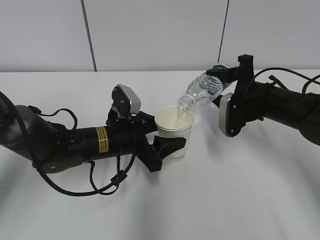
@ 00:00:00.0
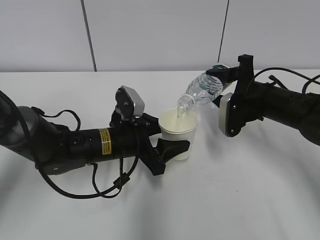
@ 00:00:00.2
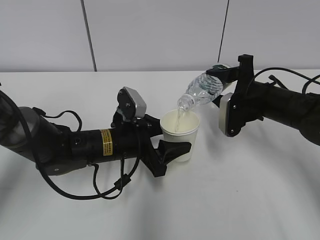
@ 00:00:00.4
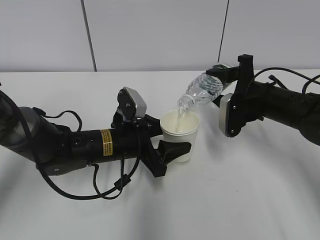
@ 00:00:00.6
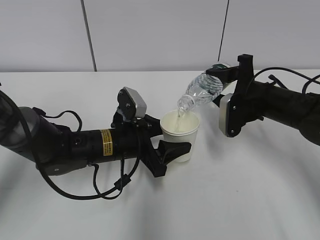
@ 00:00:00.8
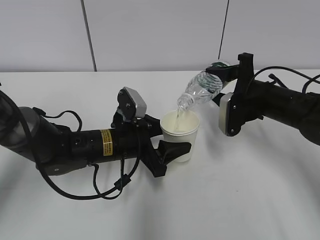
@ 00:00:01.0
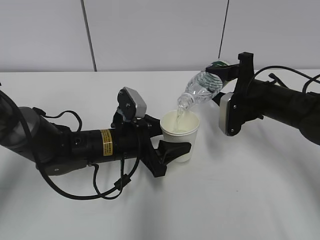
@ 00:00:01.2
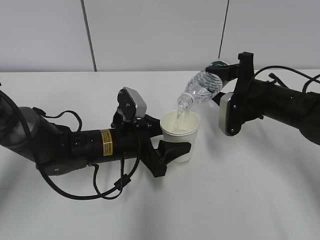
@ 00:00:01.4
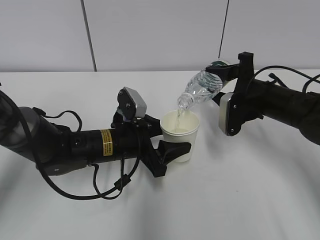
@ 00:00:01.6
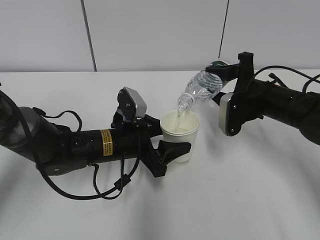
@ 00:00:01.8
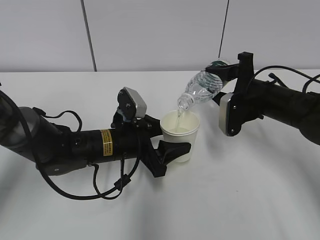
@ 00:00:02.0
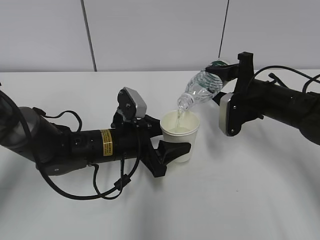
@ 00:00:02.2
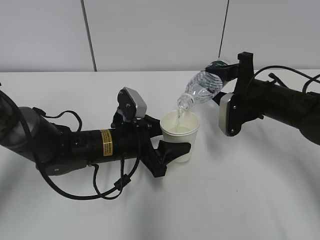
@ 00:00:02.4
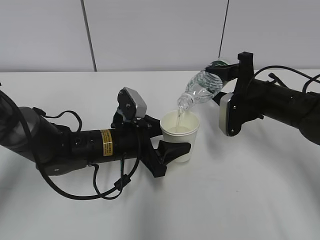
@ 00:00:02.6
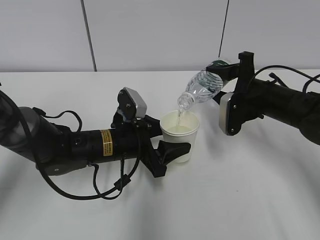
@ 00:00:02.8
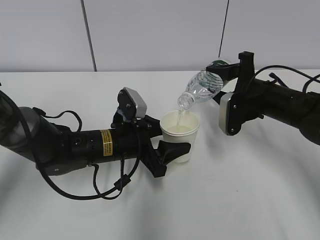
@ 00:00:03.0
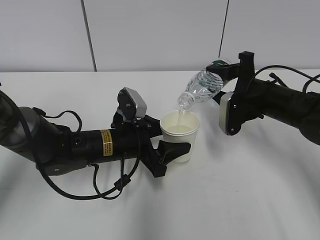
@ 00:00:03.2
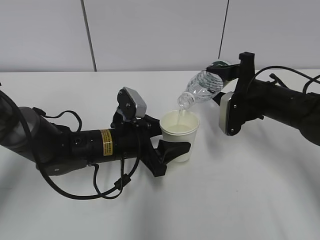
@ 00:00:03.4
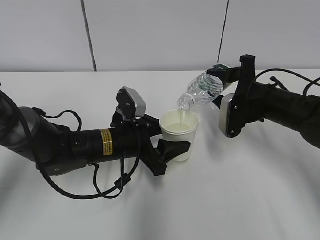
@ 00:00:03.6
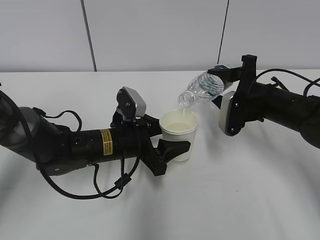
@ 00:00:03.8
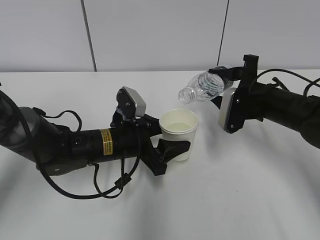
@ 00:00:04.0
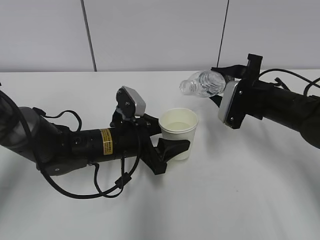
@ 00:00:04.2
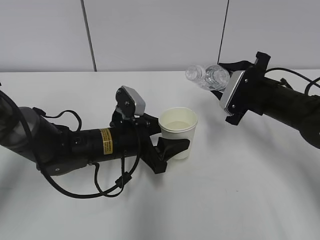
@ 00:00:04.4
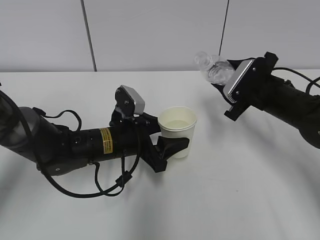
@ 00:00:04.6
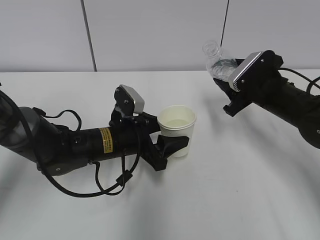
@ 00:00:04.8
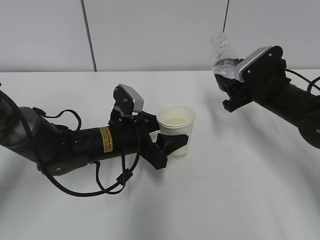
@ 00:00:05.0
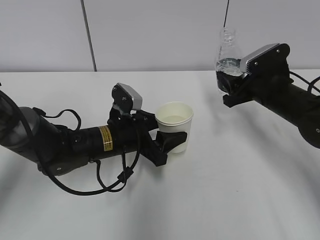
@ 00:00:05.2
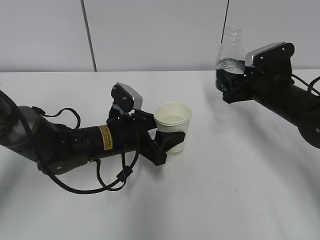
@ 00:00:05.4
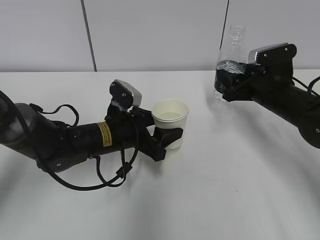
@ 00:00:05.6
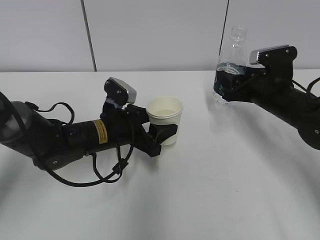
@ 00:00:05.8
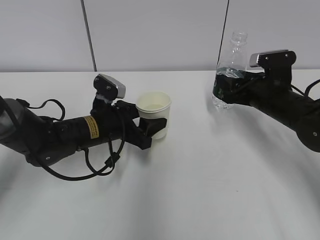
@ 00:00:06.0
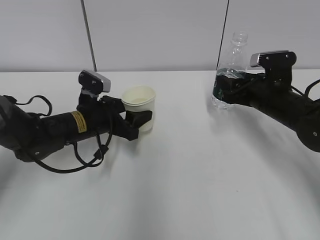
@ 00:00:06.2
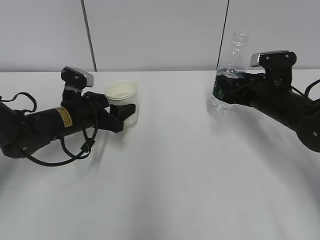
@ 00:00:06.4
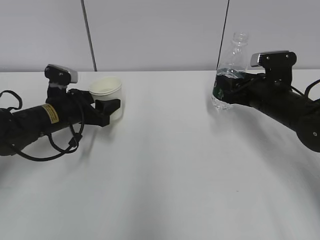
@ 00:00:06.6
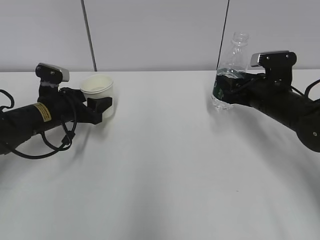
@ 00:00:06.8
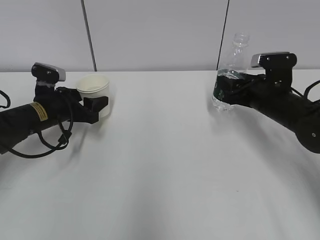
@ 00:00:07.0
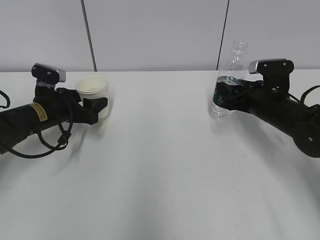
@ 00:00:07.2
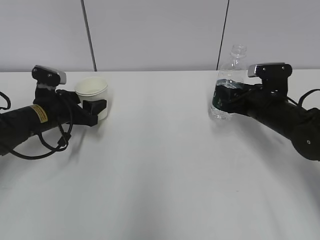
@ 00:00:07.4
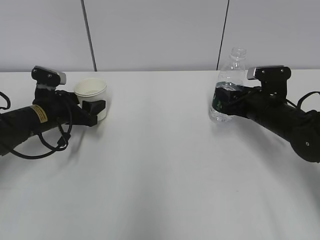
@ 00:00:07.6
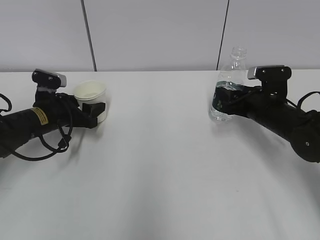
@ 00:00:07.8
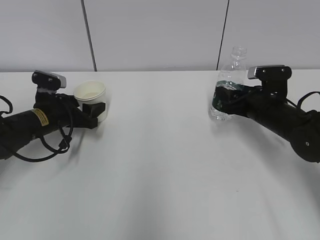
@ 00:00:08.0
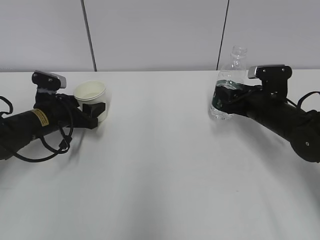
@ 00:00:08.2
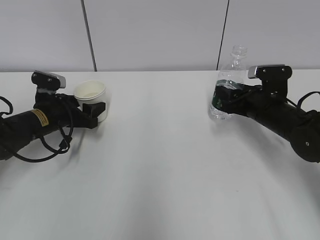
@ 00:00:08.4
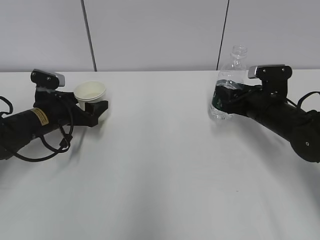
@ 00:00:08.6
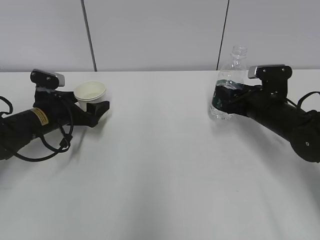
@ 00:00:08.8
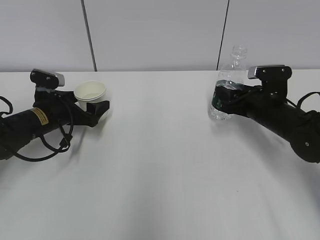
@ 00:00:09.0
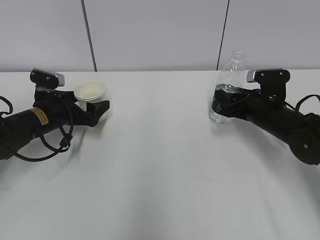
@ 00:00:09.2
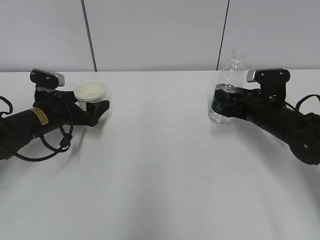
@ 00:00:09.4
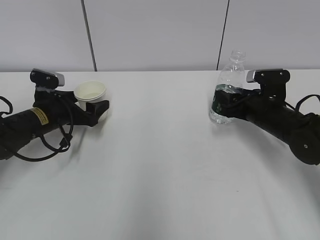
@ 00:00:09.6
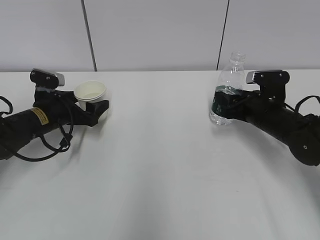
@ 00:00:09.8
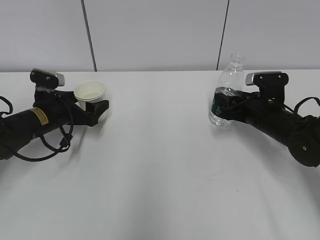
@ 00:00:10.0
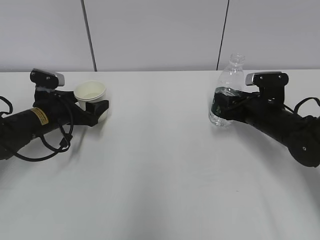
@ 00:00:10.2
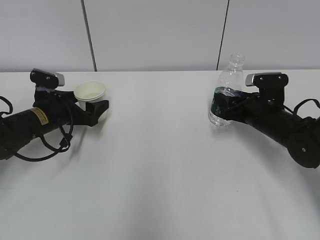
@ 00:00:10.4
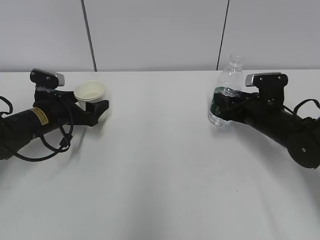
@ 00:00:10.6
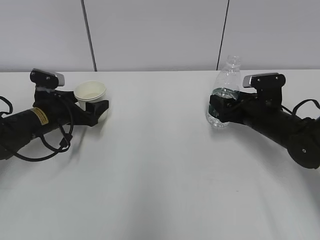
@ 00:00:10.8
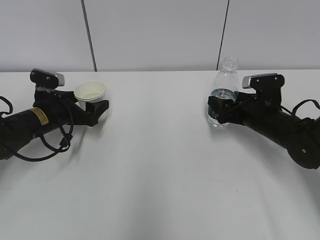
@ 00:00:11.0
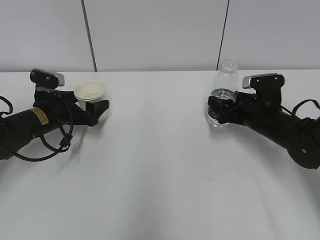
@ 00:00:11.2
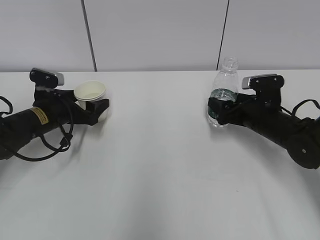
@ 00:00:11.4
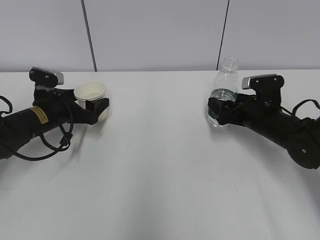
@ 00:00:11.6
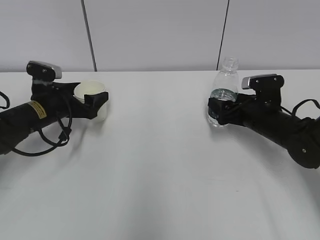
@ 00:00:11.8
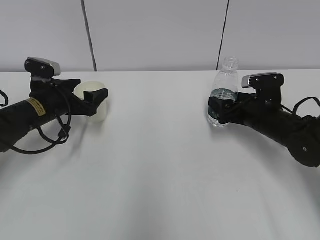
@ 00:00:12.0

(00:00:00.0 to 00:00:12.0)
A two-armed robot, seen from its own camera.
Step, 00:00:03.0 - 00:00:04.8: Place the water bottle with the right hand.
00:00:00.0 - 00:00:03.0: Neither gripper changes place.
00:00:06.0 - 00:00:07.6: The left gripper heads to the left, covering approximately 10 cm.
00:00:07.6 - 00:00:09.0: The left gripper opens.
00:00:09.0 - 00:00:10.4: The grippers stay close to where they were, moving slightly.
00:00:10.4 - 00:00:12.0: The right gripper opens its fingers.

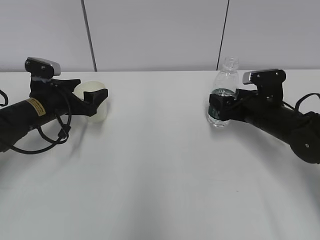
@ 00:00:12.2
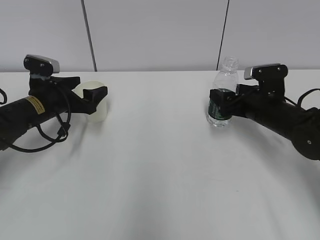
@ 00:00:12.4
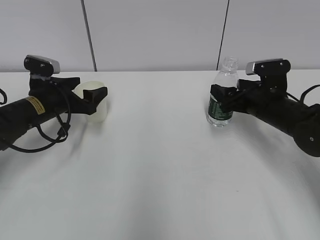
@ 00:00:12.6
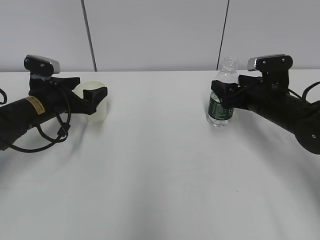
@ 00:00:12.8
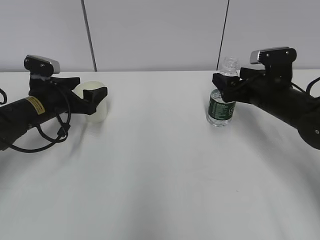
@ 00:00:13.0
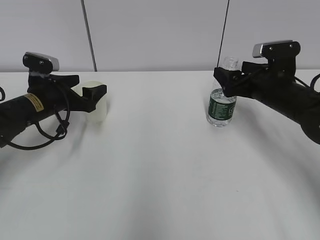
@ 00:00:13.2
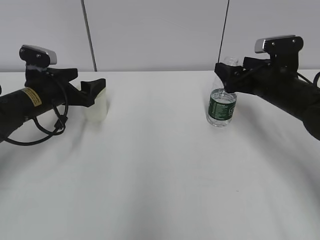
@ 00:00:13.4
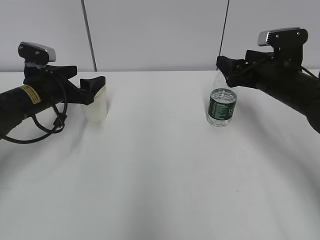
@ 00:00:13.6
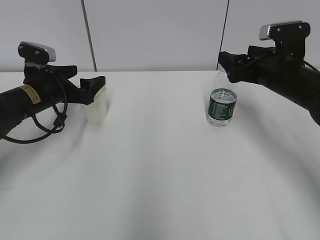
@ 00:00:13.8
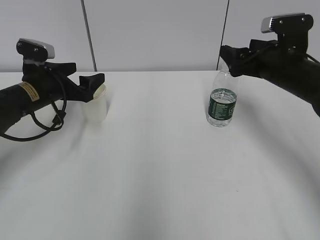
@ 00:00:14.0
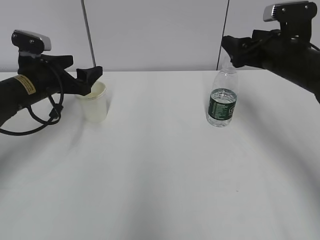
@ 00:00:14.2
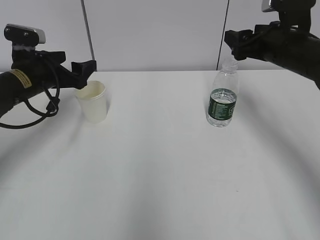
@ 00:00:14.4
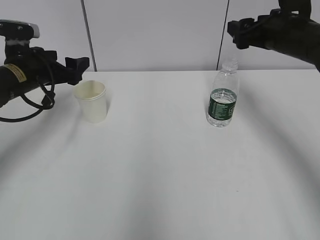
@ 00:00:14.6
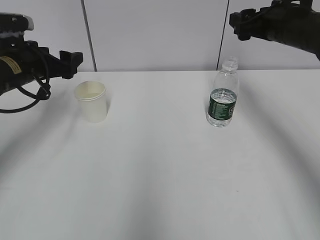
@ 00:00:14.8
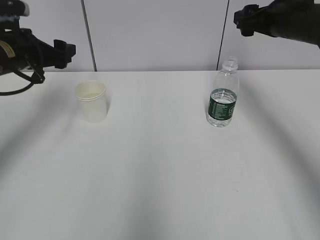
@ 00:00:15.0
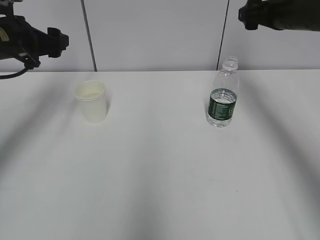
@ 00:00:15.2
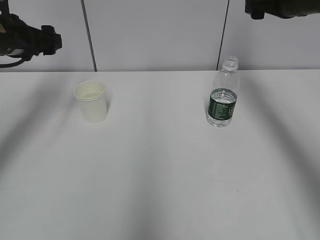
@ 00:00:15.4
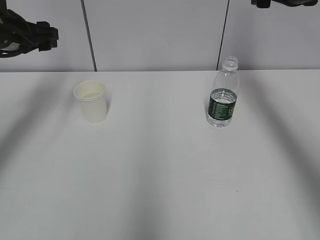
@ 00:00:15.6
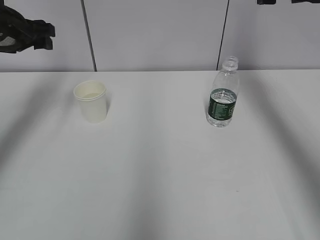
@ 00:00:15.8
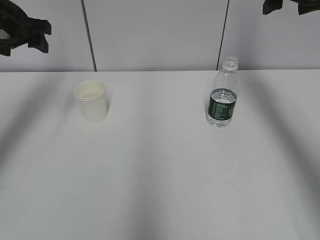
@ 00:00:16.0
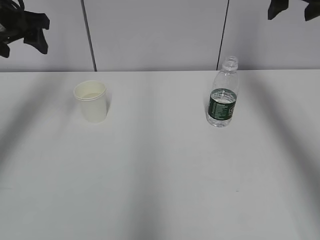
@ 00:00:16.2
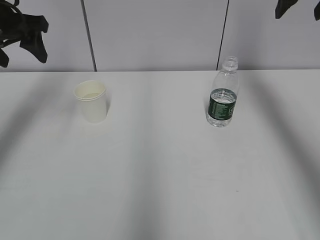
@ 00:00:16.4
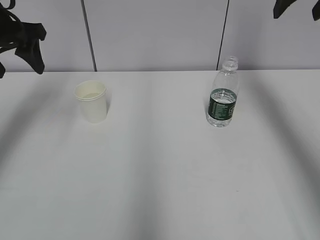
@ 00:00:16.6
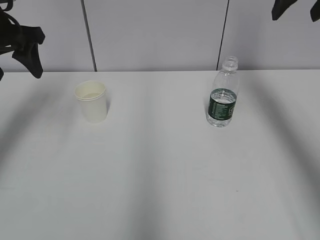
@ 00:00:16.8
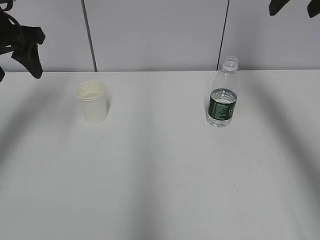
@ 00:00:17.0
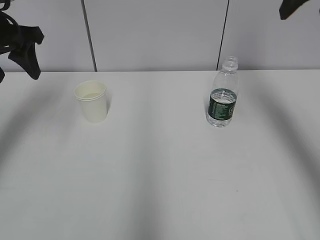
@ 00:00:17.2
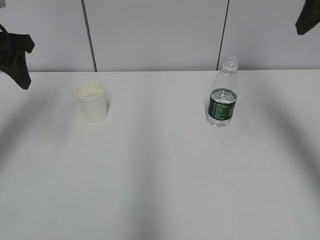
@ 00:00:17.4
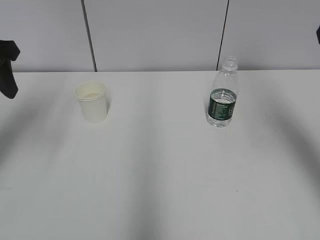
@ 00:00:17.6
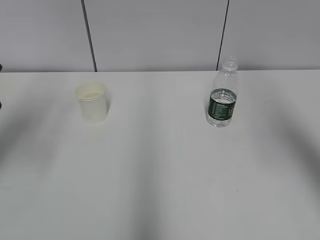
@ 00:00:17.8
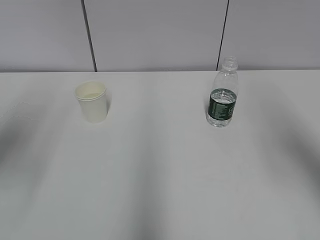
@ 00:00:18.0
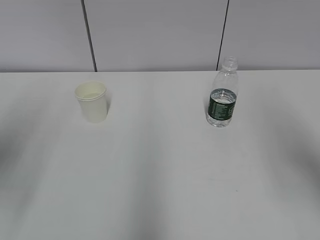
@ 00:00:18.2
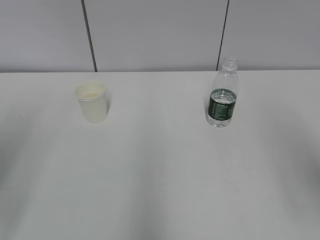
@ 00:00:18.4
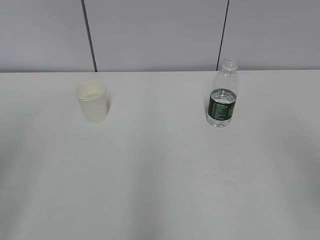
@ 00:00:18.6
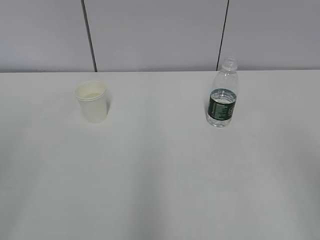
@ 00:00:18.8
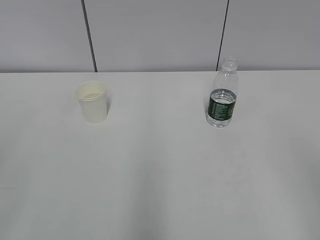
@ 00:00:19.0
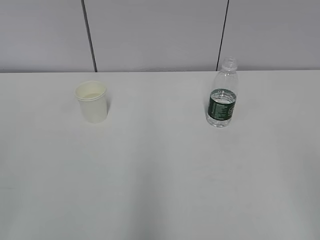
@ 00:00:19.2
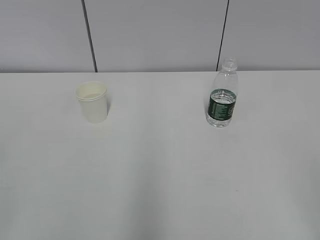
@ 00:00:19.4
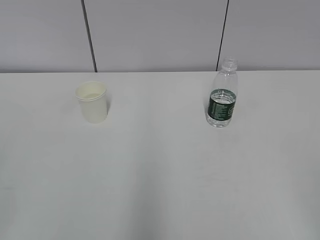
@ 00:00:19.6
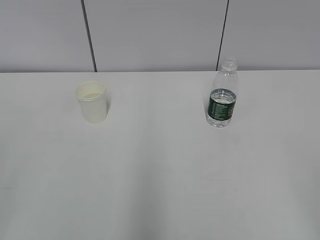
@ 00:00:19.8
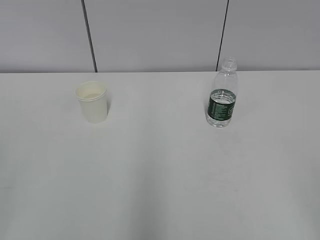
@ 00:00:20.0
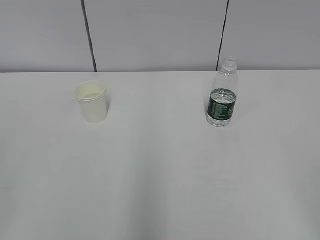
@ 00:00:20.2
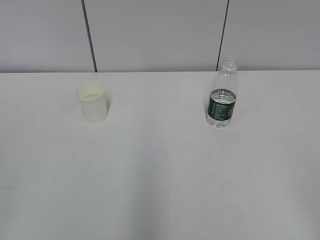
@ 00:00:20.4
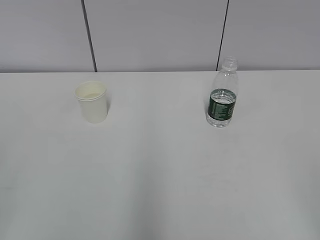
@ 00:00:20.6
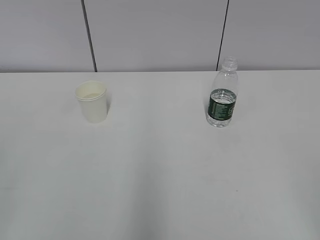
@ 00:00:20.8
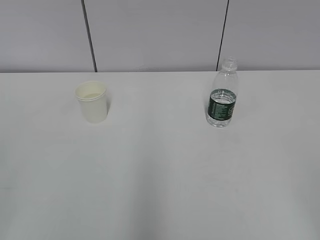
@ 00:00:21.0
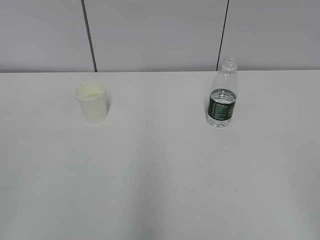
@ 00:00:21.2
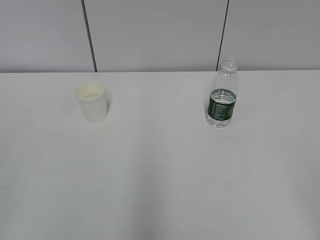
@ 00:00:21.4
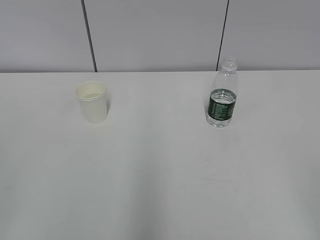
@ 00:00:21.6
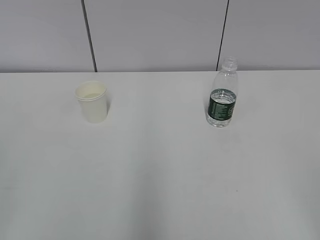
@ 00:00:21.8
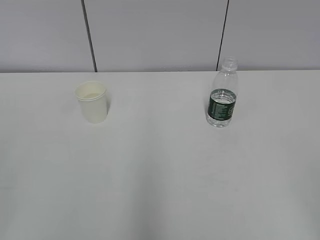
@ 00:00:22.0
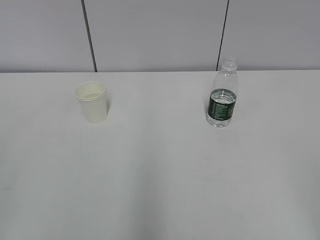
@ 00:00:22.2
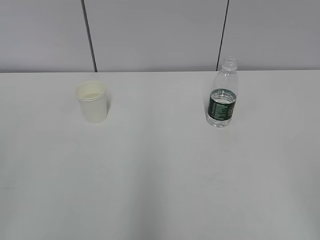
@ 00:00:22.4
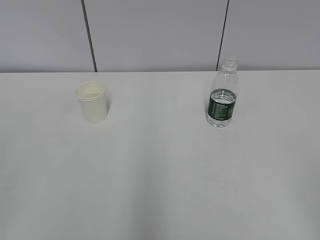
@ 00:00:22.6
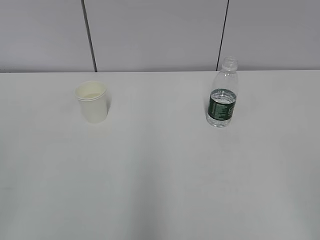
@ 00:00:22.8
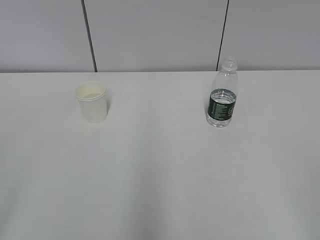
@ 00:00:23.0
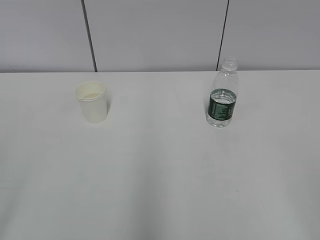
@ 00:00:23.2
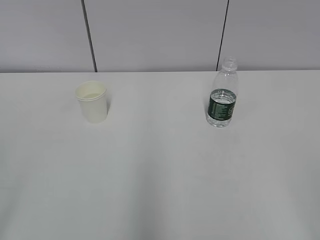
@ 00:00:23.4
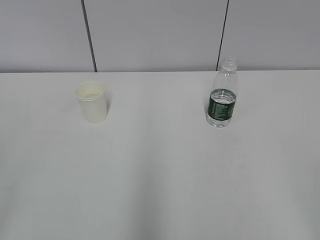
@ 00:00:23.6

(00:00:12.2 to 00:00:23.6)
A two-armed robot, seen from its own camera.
00:00:12.2 - 00:00:13.6: The right gripper shifts about 10 cm upward.
00:00:13.6 - 00:00:15.0: Both grippers travel together upward, about 10 cm.
00:00:15.0 - 00:00:16.4: Both grippers move upward, approximately 10 cm.
00:00:16.4 - 00:00:17.8: The grippers both shift backward by some 15 cm.
00:00:17.8 - 00:00:19.4: The left gripper is displaced backward by about 30 cm; the right gripper moves backward and downward, approximately 25 cm.
00:00:20.8 - 00:00:22.2: The two grippers keep their place.
